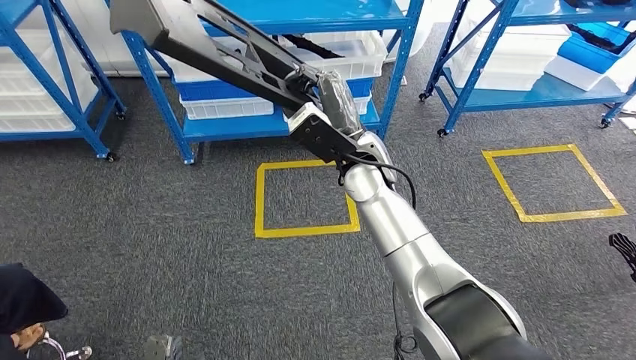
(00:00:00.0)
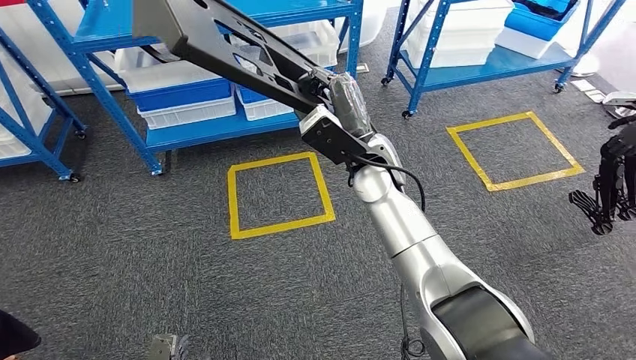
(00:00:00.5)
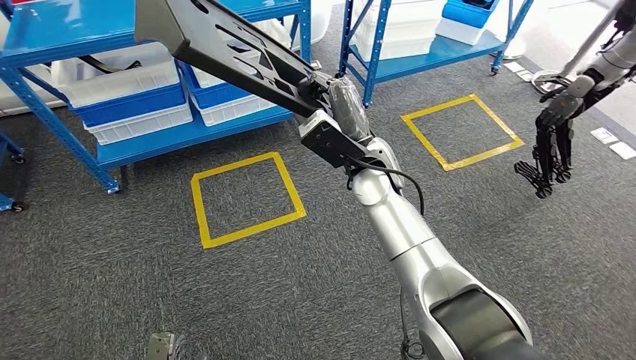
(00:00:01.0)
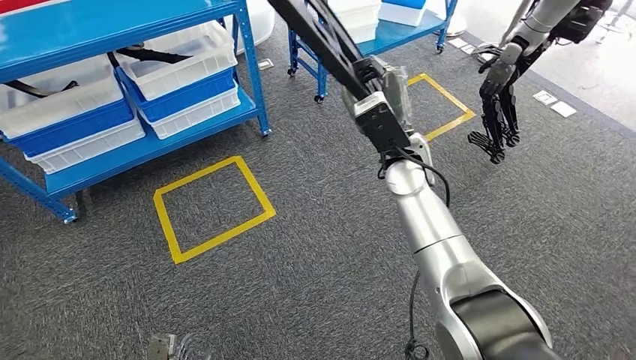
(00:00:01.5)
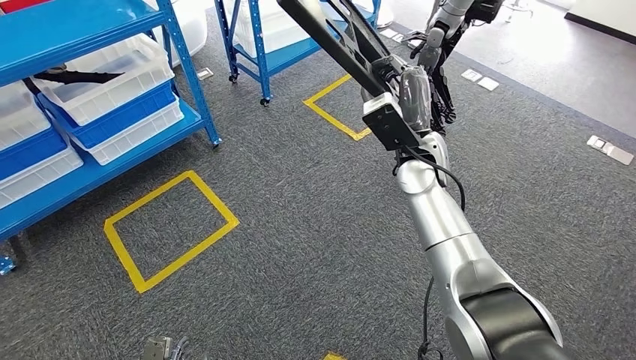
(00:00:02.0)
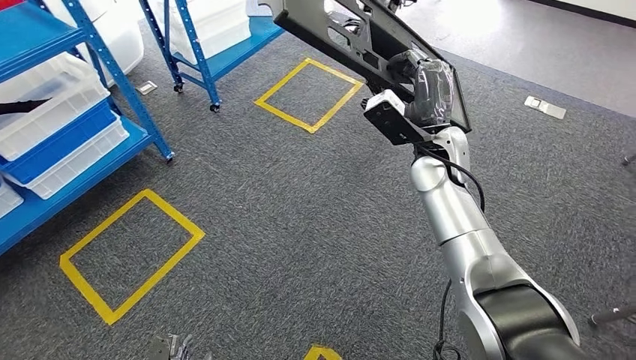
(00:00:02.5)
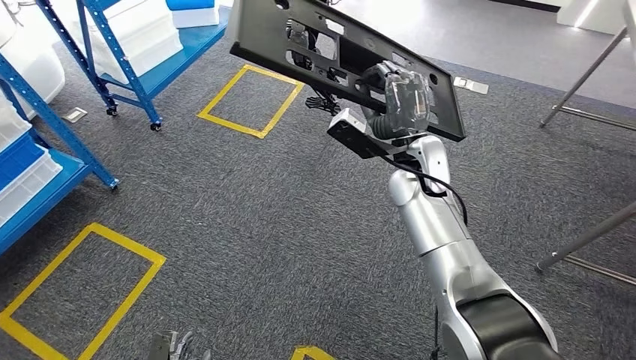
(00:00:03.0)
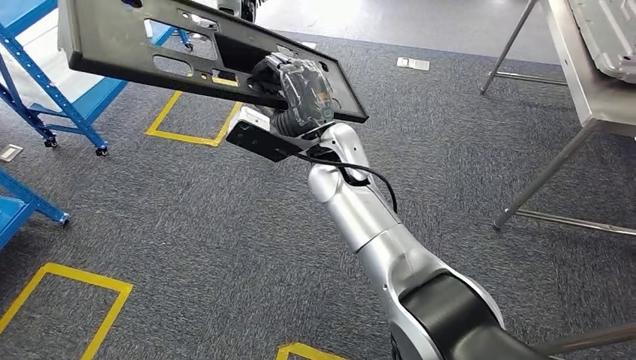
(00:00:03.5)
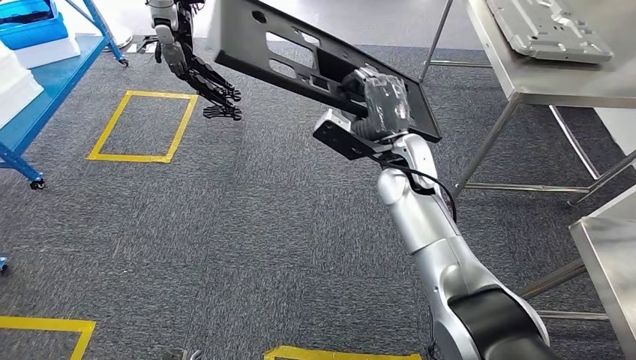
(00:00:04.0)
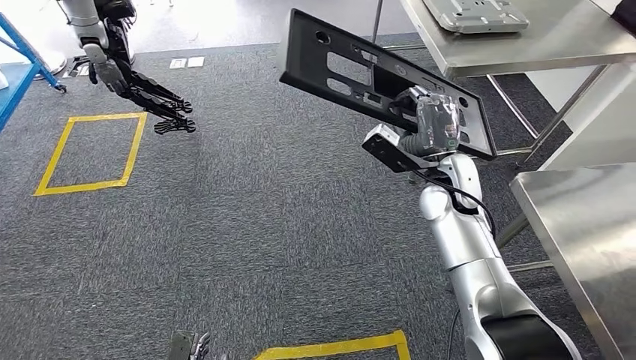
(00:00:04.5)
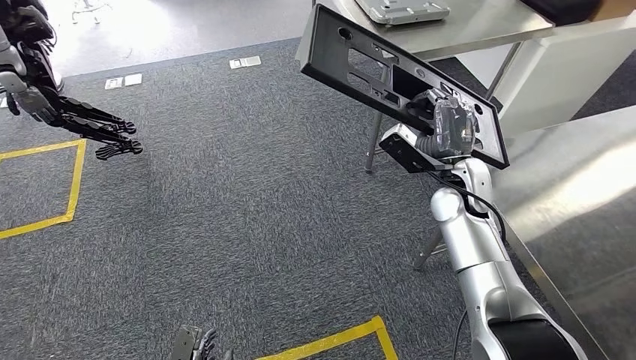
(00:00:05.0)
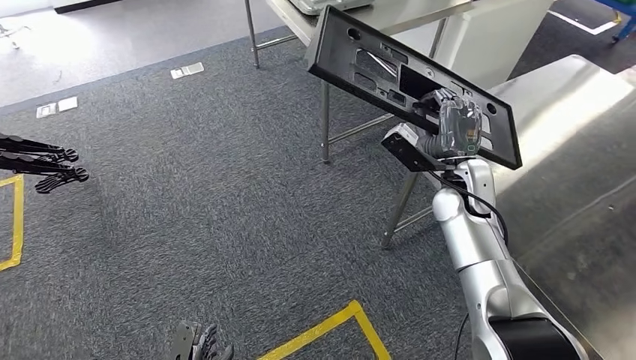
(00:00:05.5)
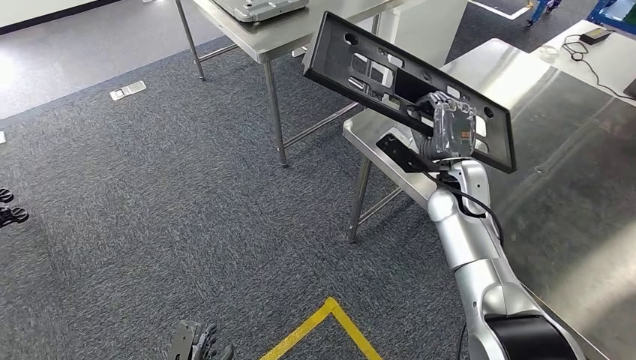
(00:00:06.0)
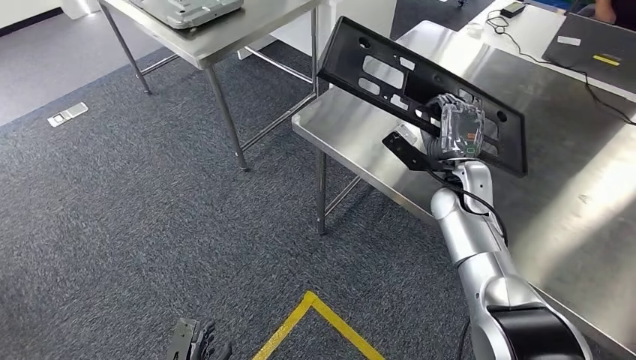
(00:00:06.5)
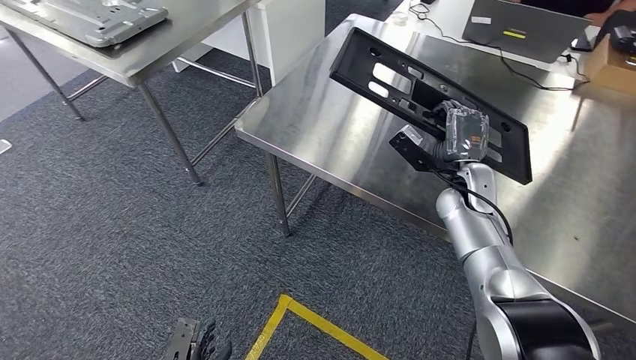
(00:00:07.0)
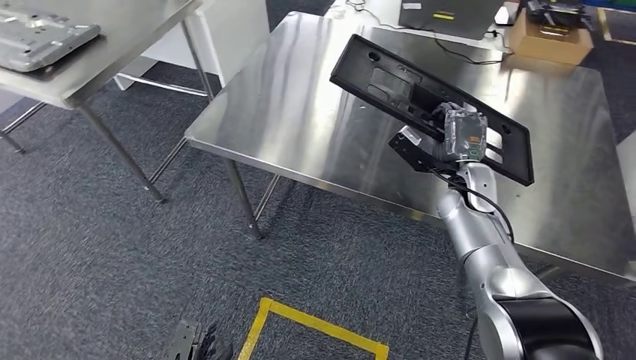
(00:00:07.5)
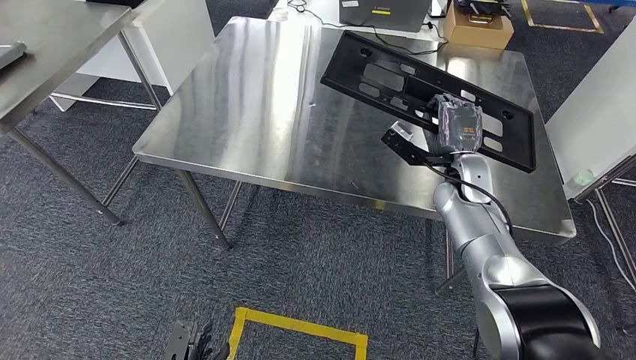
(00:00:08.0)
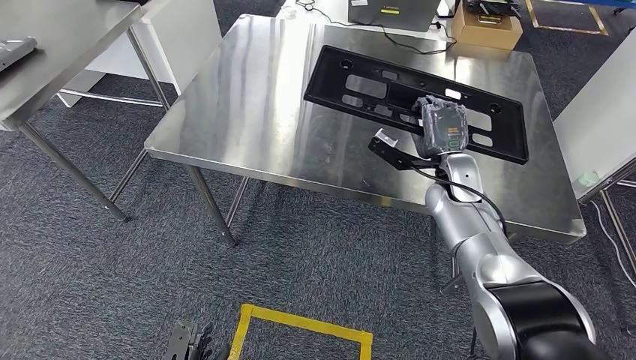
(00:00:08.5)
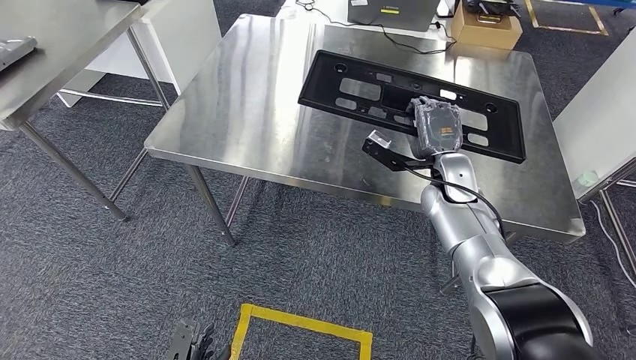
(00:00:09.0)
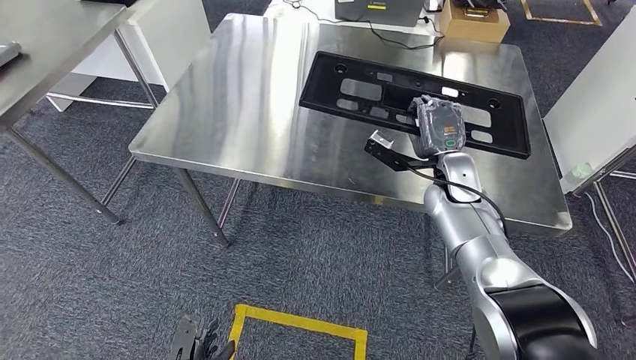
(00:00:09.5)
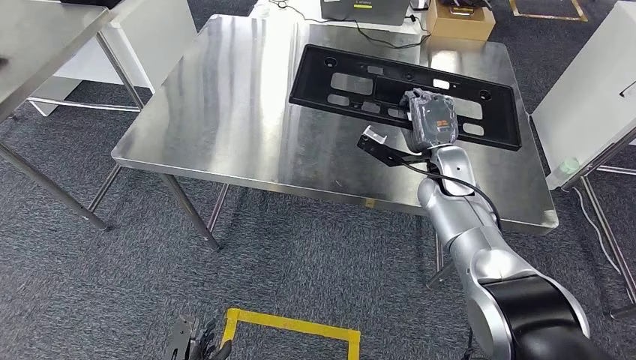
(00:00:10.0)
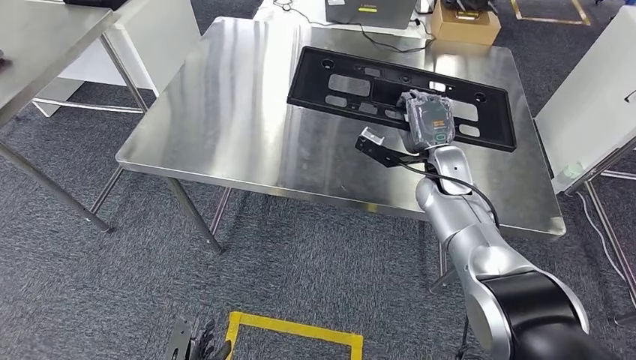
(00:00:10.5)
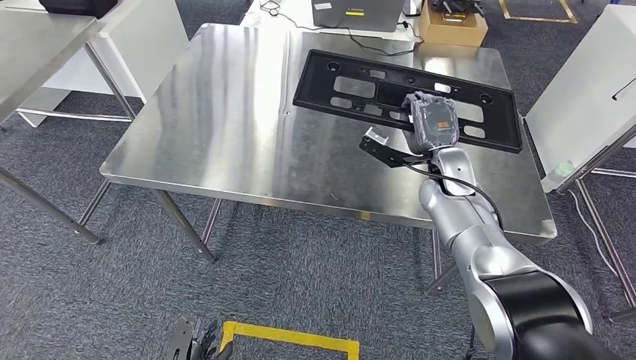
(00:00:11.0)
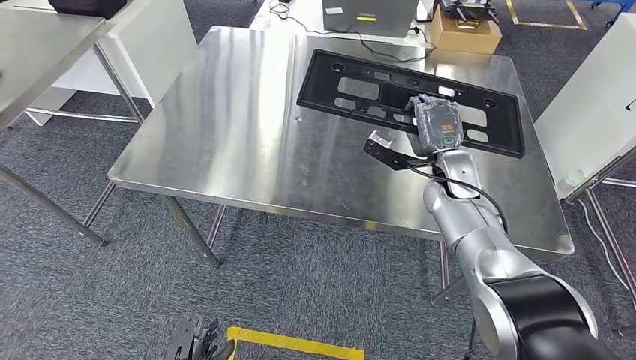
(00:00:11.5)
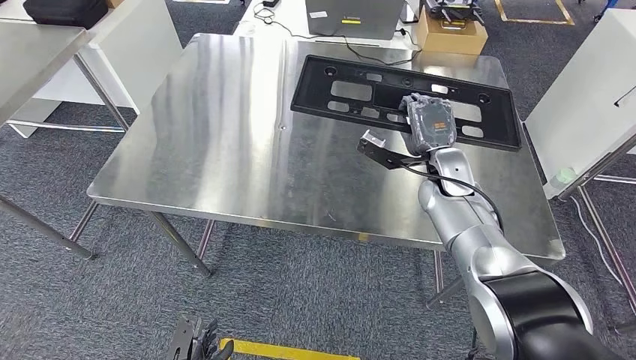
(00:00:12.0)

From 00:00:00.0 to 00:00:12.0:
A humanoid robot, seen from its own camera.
Step, from 00:00:00.0 to 00:00:05.0: Move the large material to the workbench.

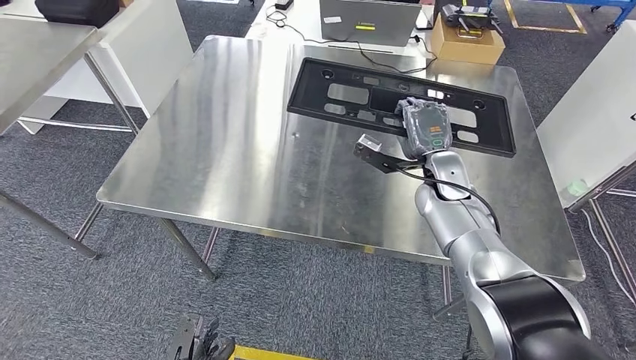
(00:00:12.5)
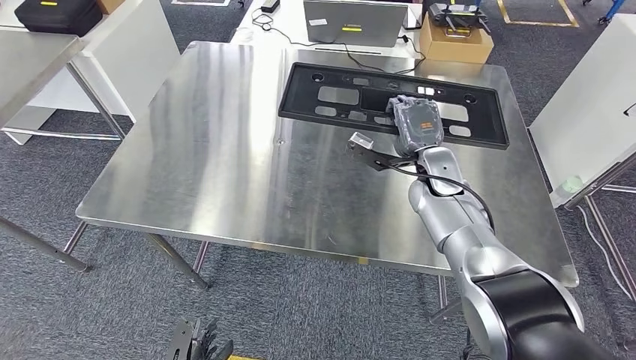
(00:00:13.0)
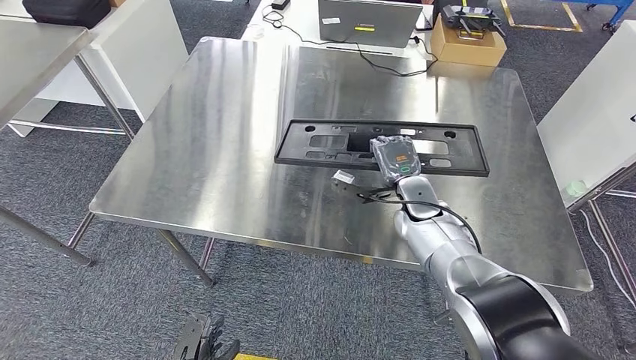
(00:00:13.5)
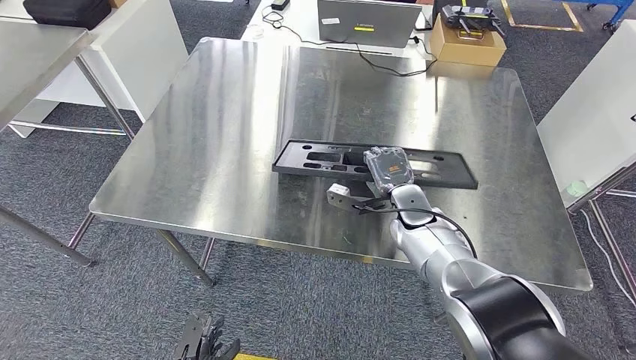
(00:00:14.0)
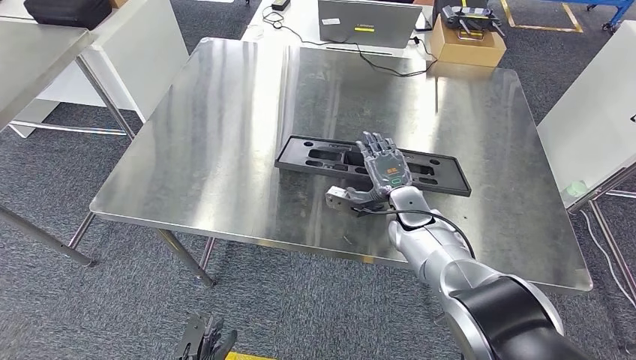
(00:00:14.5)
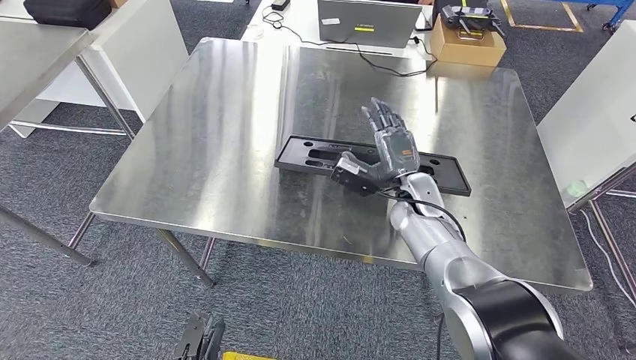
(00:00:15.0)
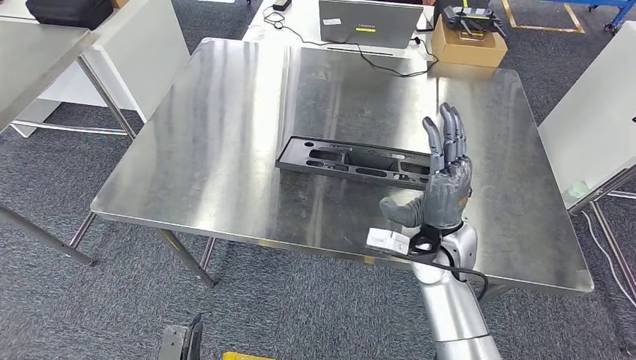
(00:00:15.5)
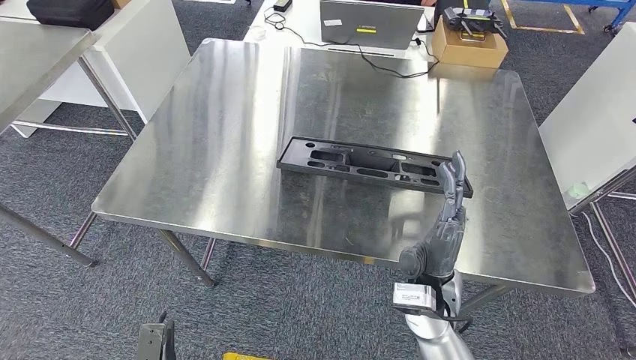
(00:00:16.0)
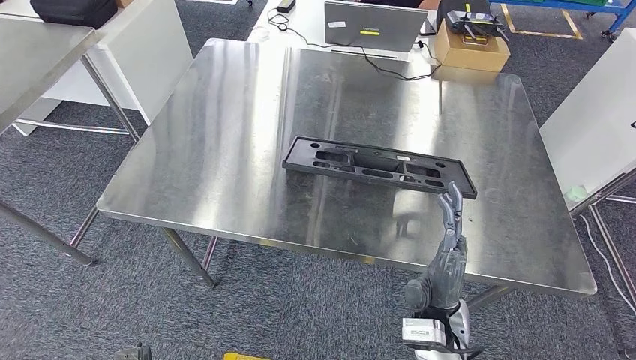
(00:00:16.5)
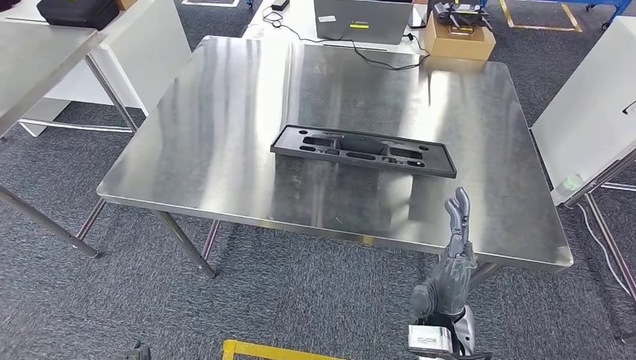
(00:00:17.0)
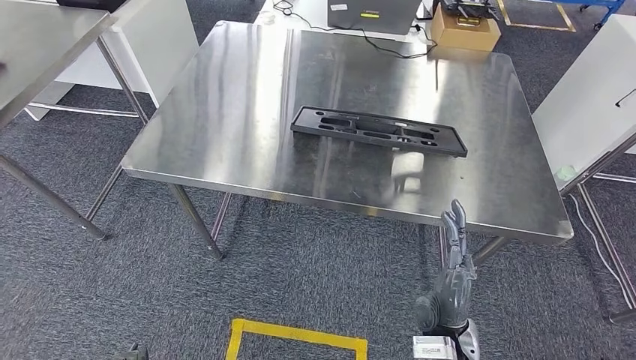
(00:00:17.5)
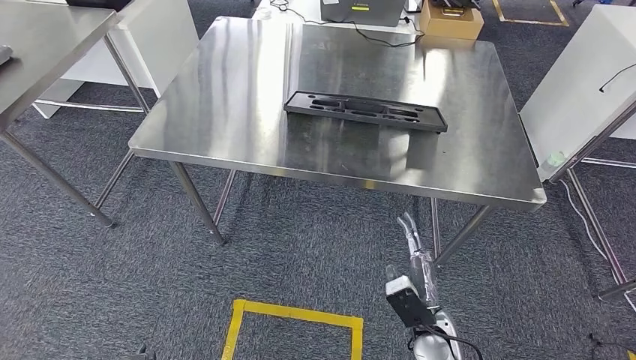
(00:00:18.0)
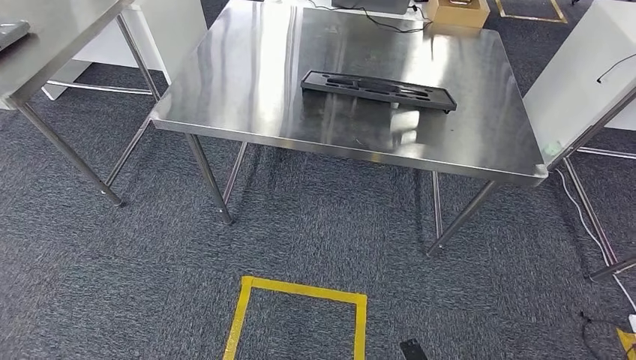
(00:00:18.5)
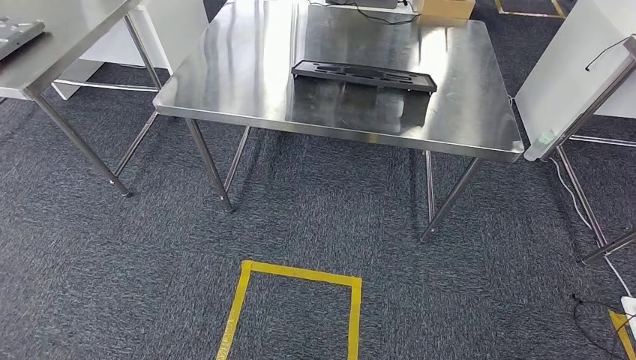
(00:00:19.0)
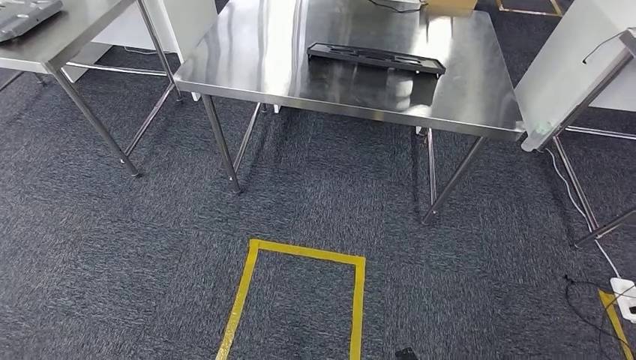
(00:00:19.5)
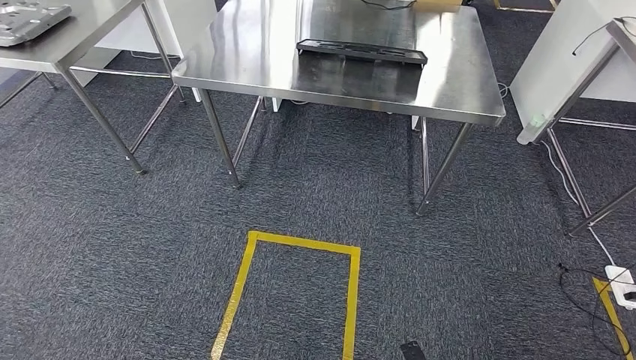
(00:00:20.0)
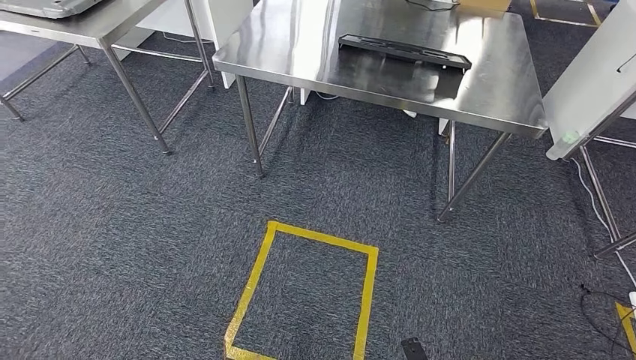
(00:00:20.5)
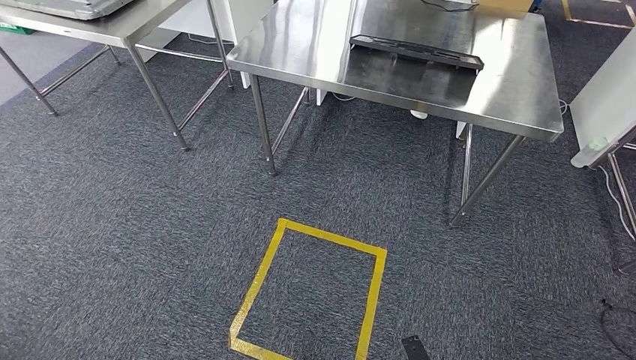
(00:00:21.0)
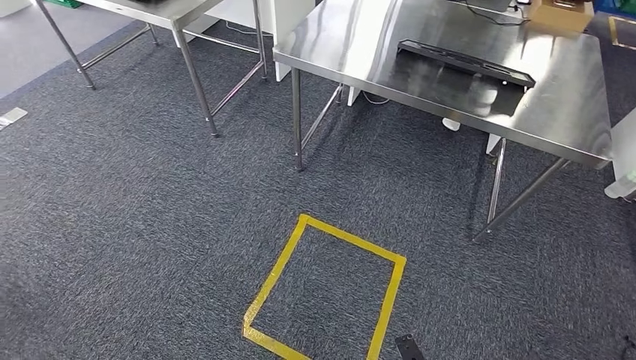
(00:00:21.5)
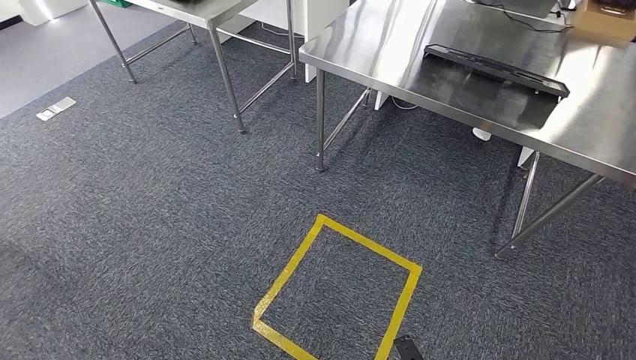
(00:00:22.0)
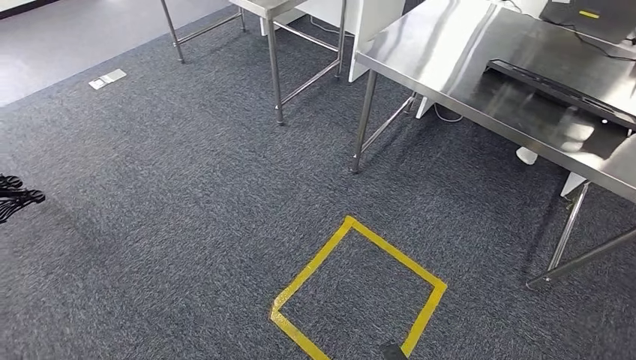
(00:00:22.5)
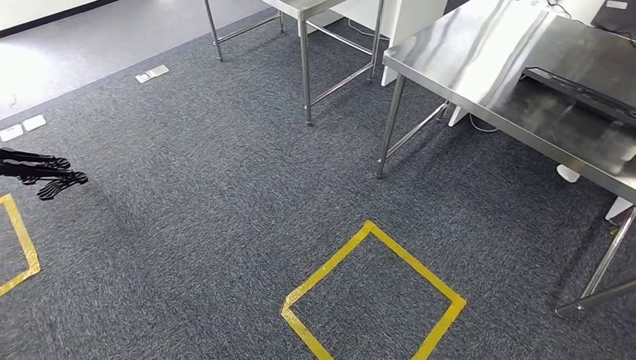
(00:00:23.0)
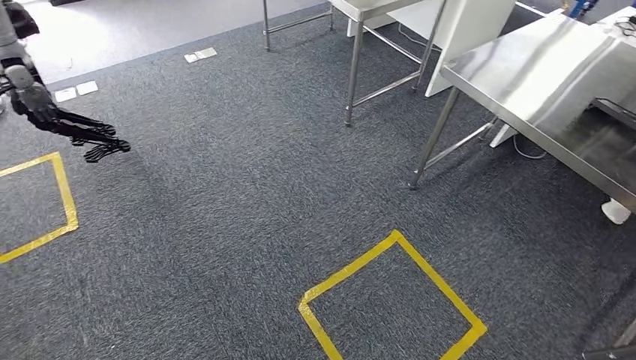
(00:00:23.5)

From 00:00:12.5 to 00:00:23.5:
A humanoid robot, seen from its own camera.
Step, from 00:00:12.5 to 00:00:15.5: Insert the large material into the corresponding slot on the workbench.
From 00:00:14.5 to 00:00:16.0: The left hand travels to the left by approximately 5 cm. Meanwhile the right hand heads backward, covering some 15 cm.
